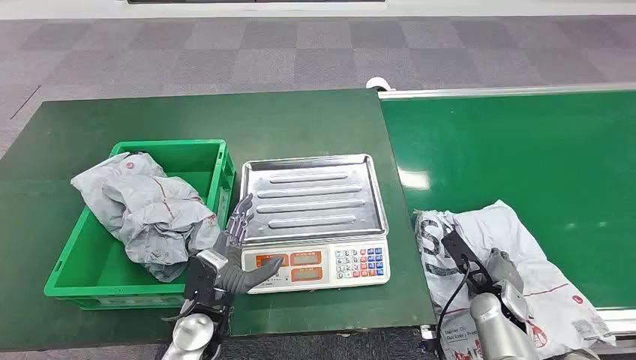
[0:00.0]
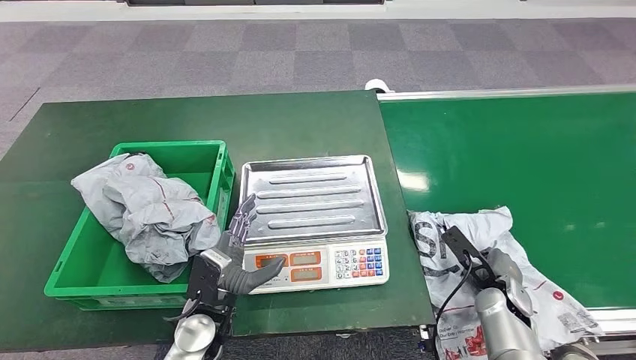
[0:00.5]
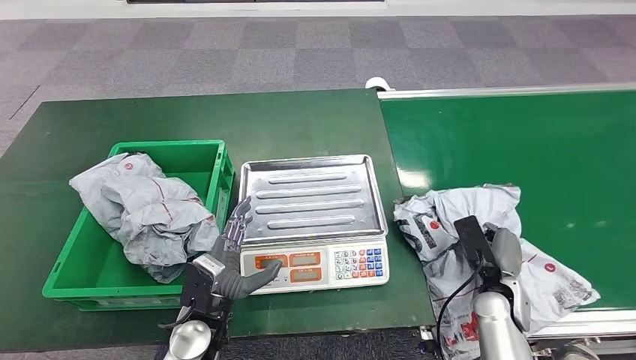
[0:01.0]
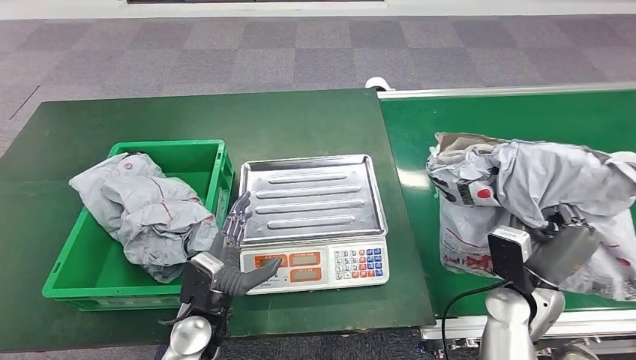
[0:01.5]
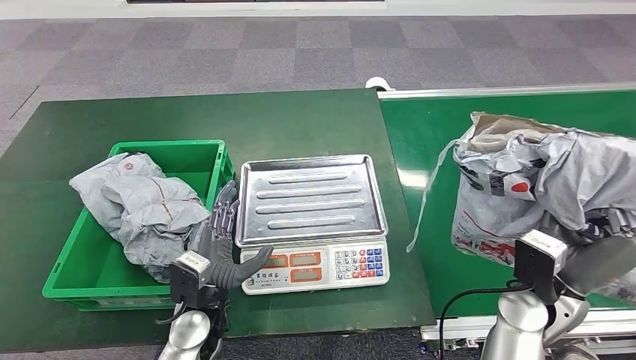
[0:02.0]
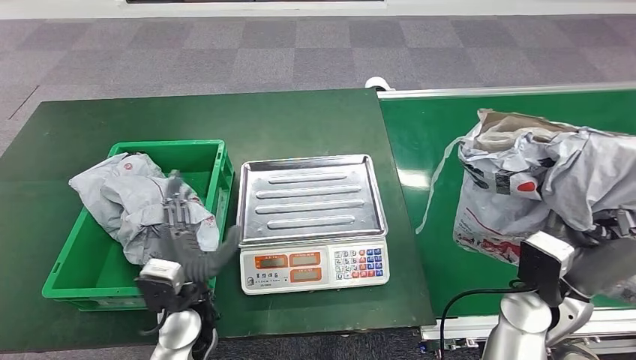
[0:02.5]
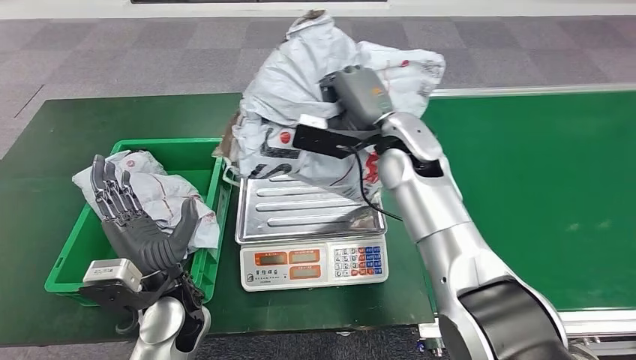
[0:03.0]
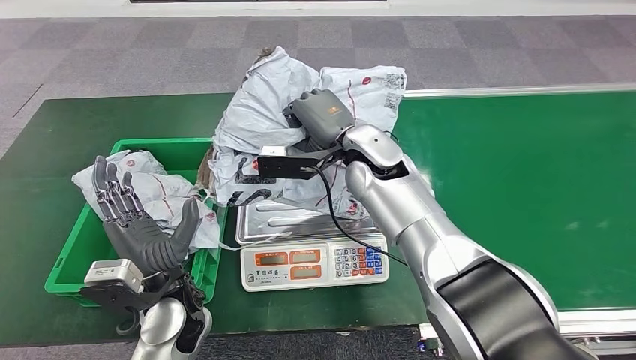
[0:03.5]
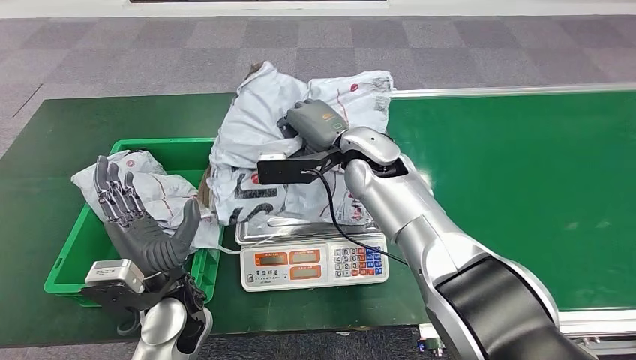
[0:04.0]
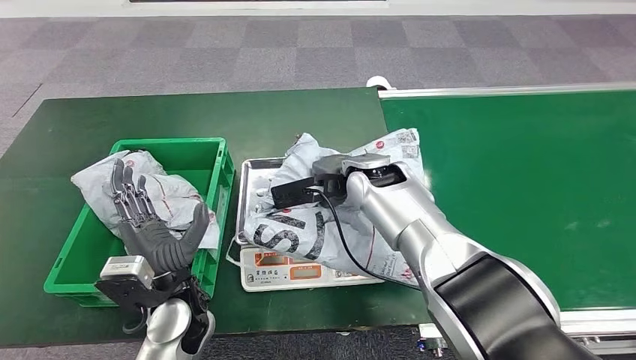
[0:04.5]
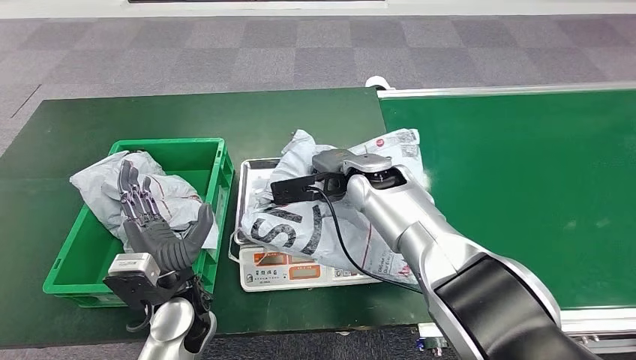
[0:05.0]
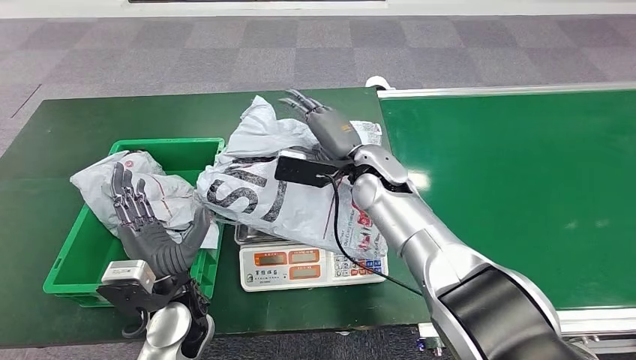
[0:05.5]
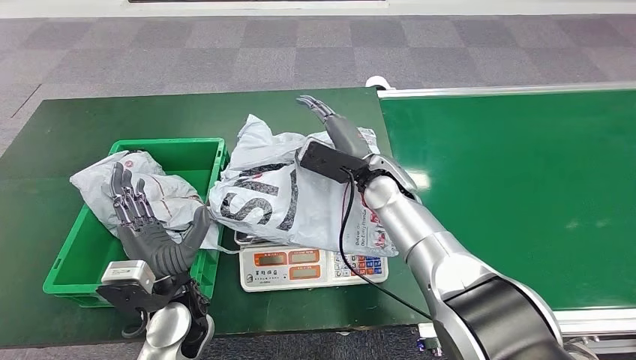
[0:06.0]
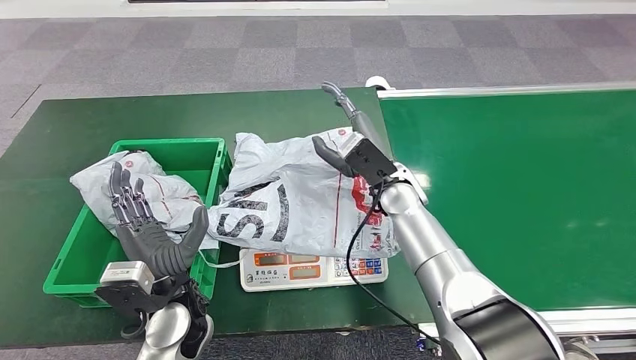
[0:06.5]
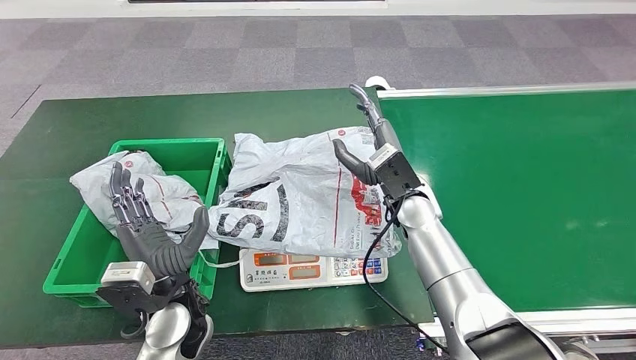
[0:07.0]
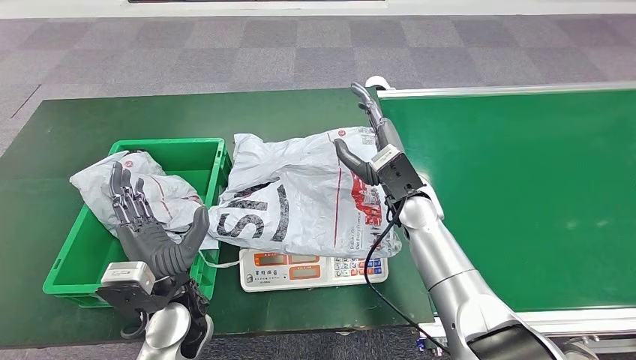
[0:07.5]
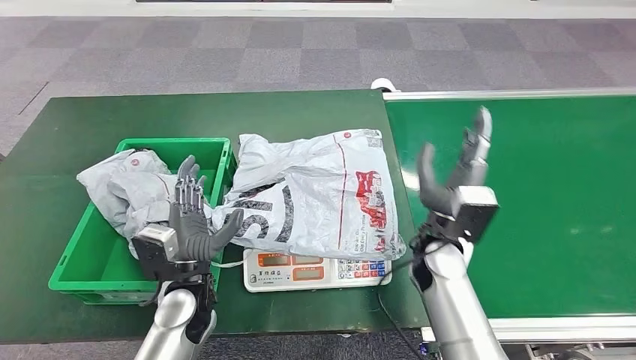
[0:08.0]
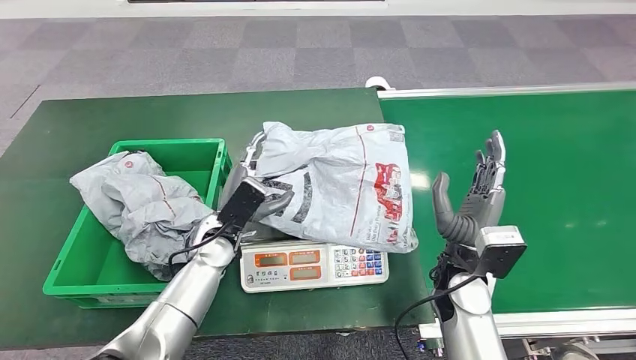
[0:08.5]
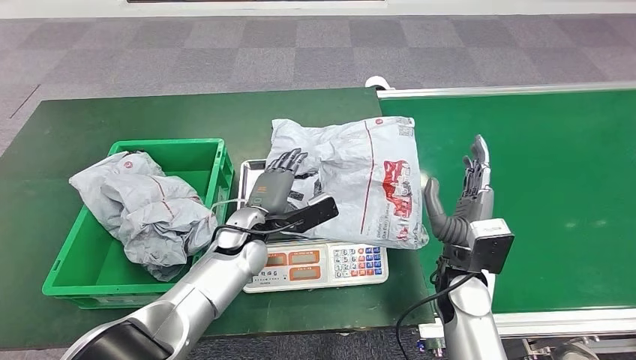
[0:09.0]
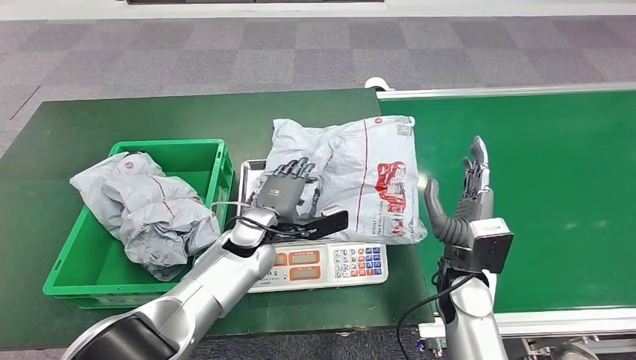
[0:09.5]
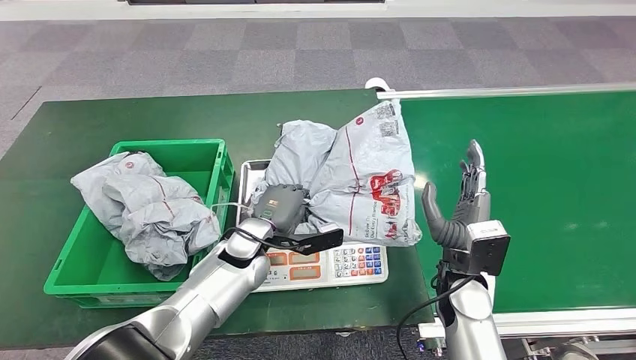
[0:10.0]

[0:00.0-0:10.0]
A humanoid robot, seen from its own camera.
Step, 0:00.0 to 0:02.0: Pick up the package from the conveyor belt.
Step, 0:02.5 to 0:06.5: Place the package onto the inbound machine.

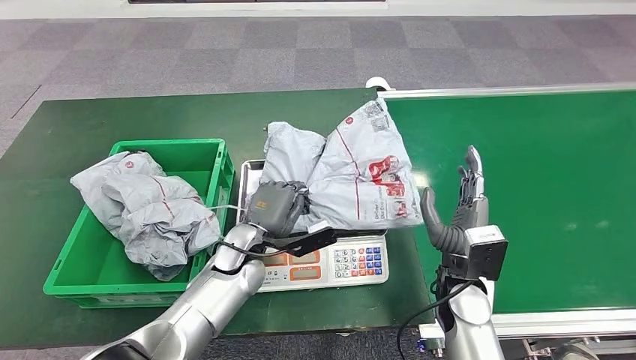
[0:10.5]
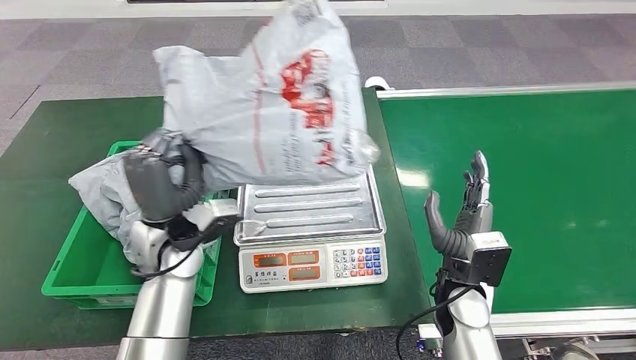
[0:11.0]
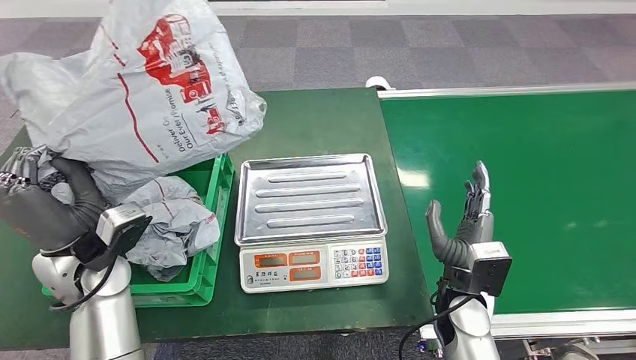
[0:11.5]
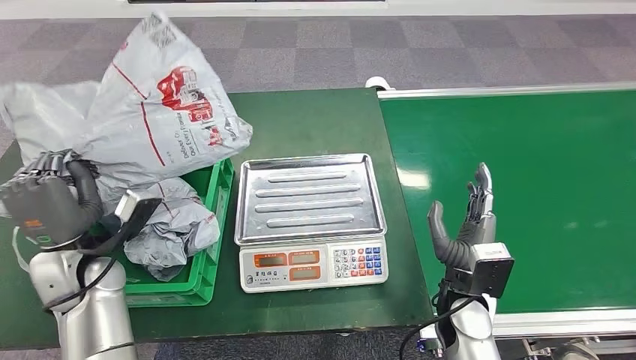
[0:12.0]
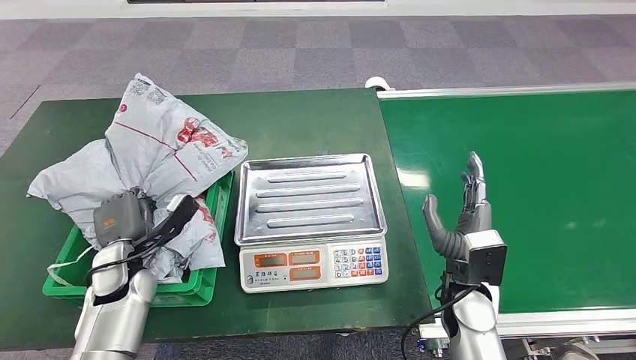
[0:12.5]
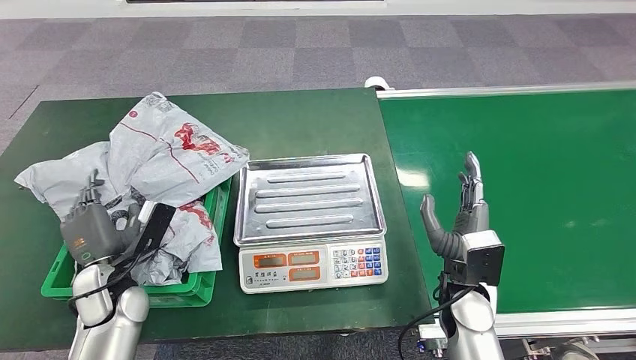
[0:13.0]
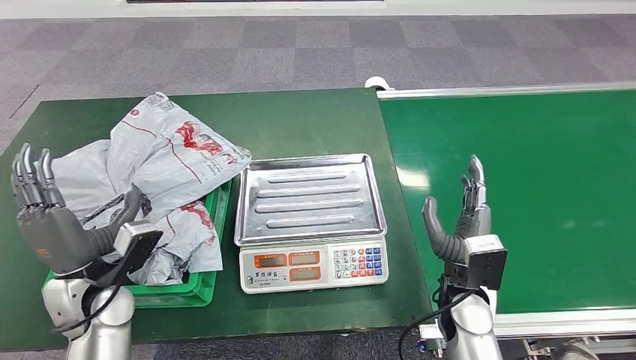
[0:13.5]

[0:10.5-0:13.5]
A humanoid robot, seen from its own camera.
Step, 0:11.5 to 0:13.5: Place the package into the parcel locker.

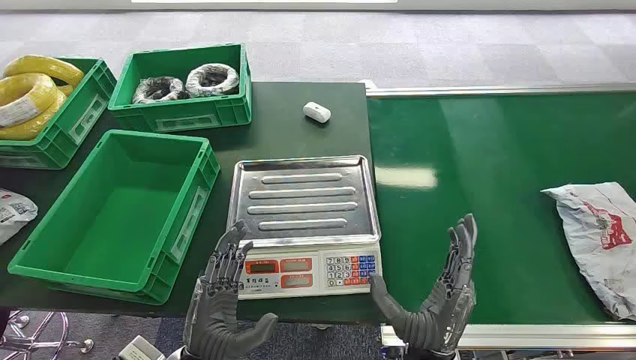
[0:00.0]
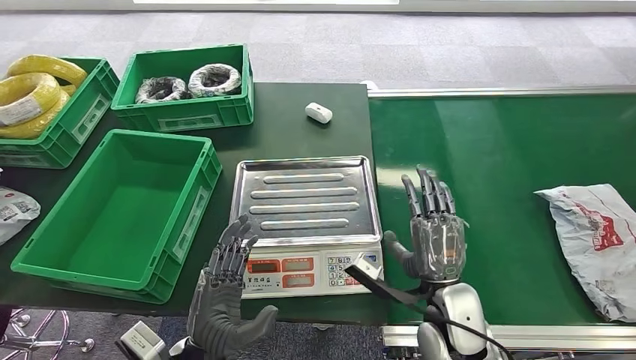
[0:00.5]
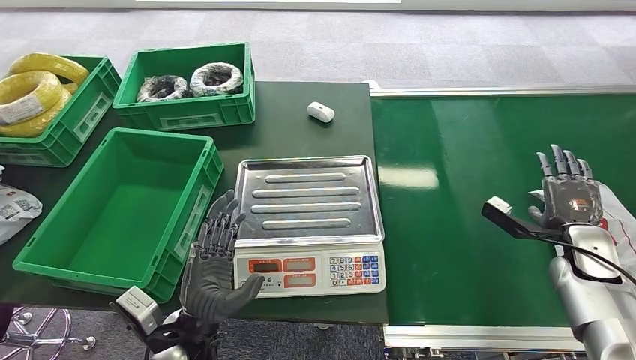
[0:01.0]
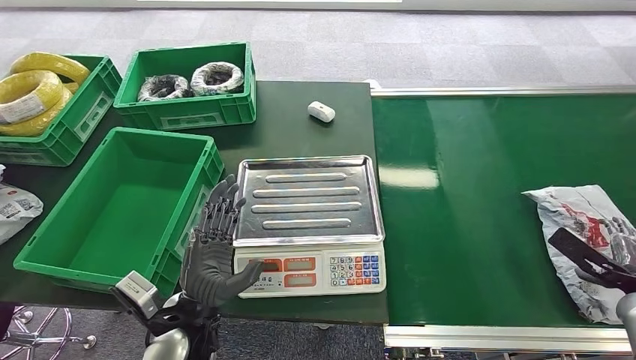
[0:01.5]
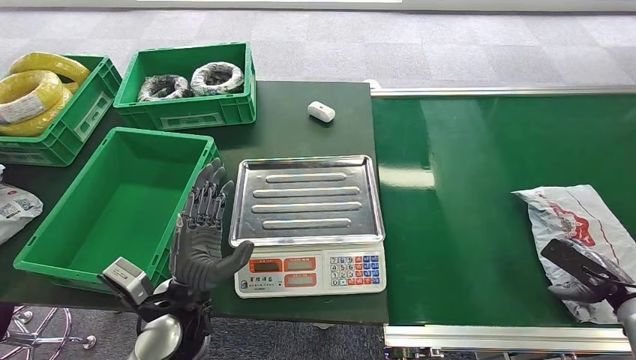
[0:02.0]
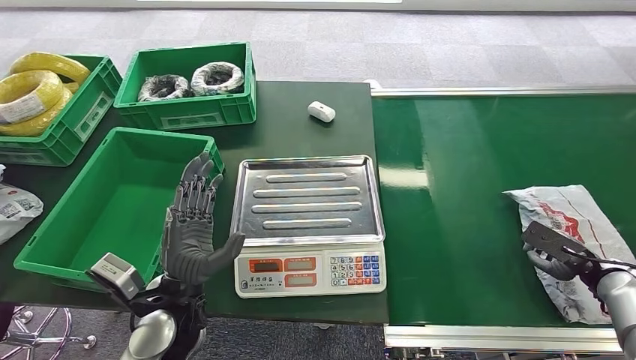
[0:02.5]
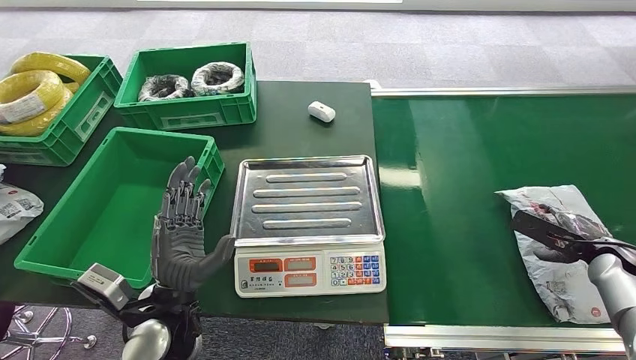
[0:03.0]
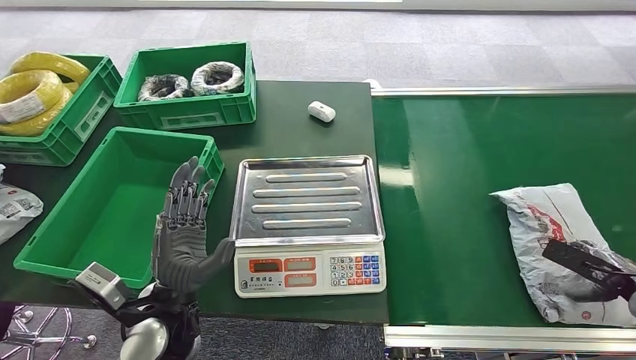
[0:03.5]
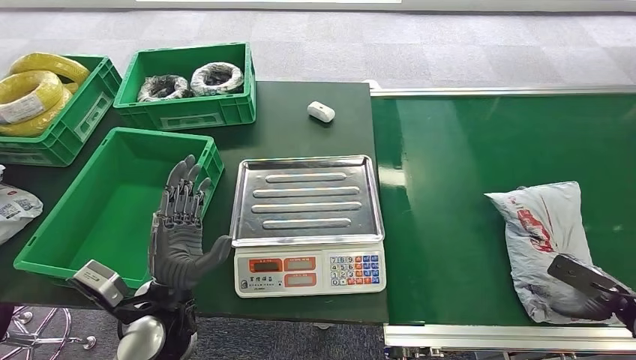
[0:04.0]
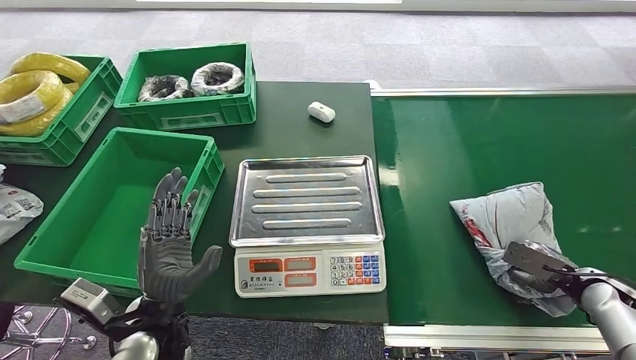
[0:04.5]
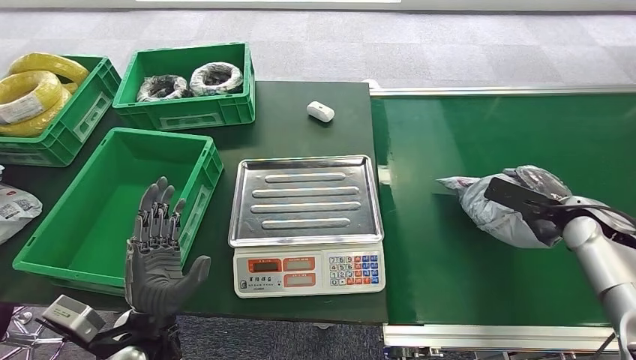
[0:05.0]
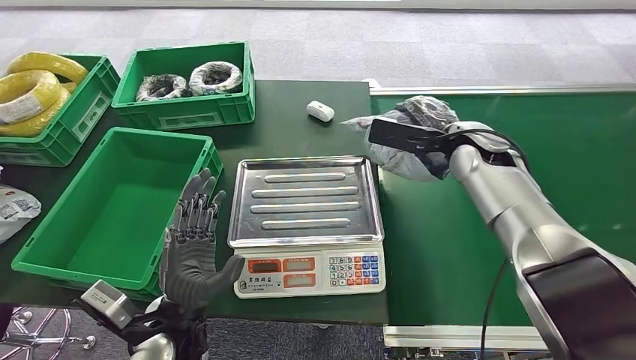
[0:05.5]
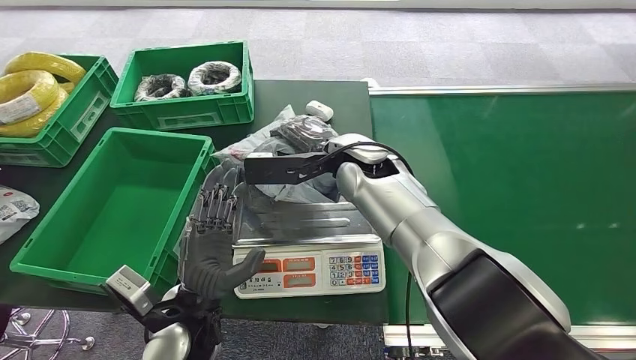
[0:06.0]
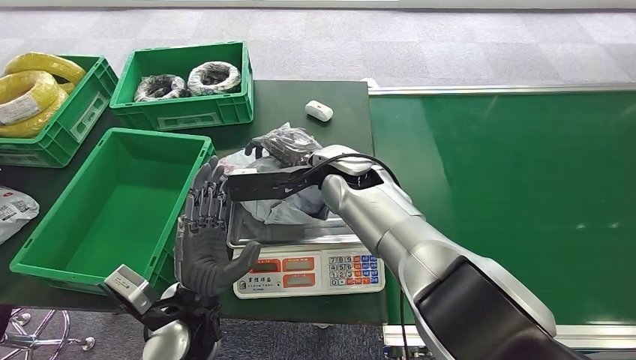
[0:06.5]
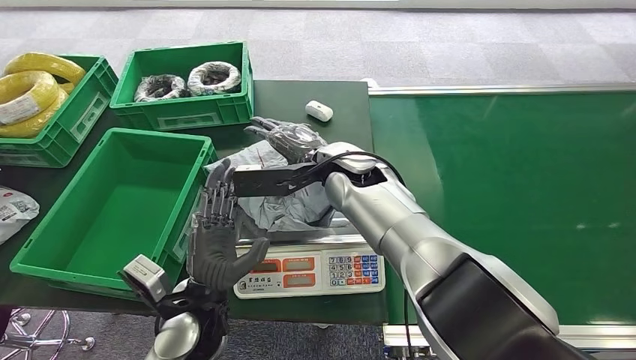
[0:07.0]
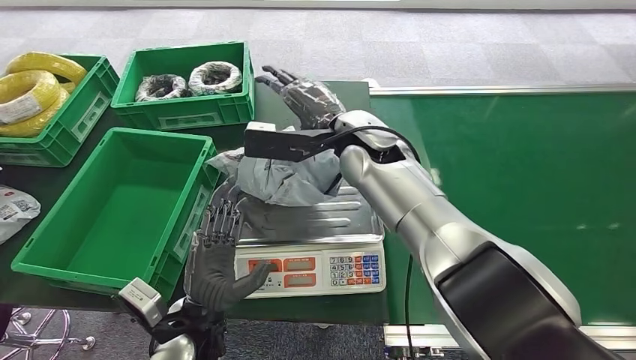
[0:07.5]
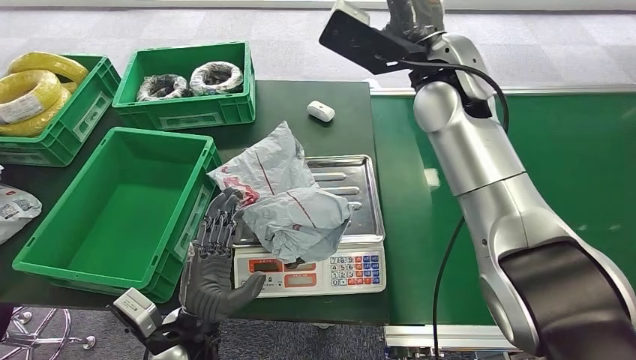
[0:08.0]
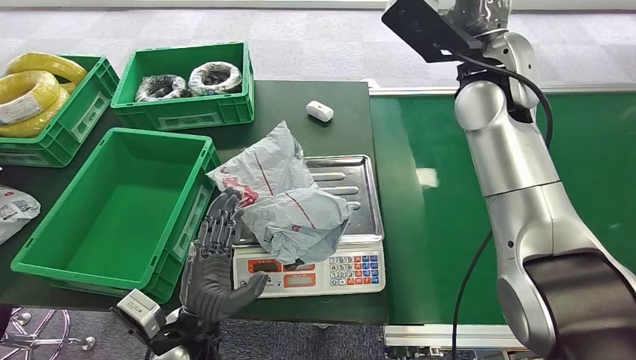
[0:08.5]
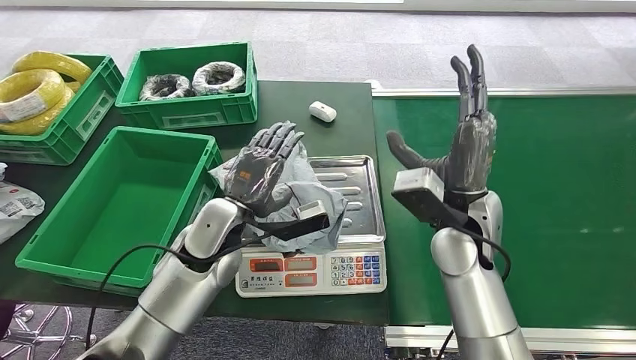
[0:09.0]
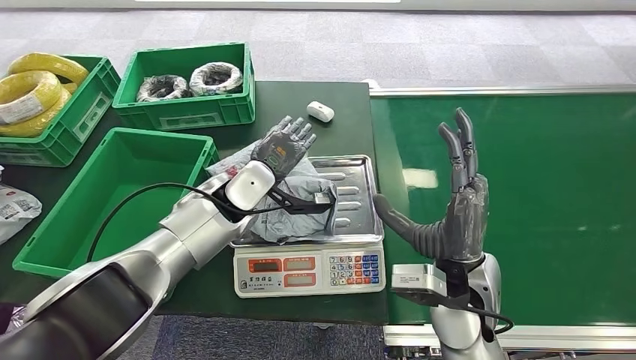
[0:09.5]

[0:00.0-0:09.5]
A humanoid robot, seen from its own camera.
Step, 0:00.0 to 0:05.0: Pick up the package from the conveyor belt.
Step, 0:05.5 to 0:08.0: Place the package onto the inbound machine.
0:02.0 to 0:04.0: The right hand moves some 5 cm forward and comes back.
